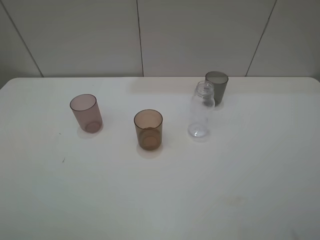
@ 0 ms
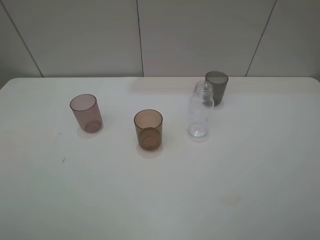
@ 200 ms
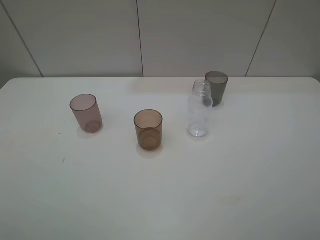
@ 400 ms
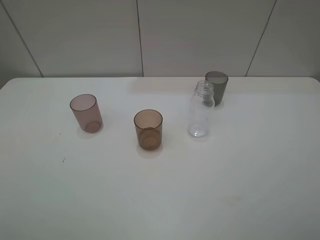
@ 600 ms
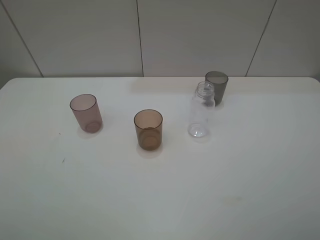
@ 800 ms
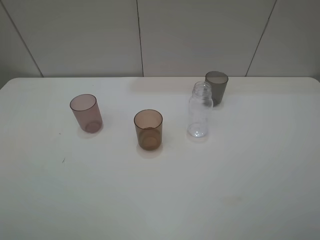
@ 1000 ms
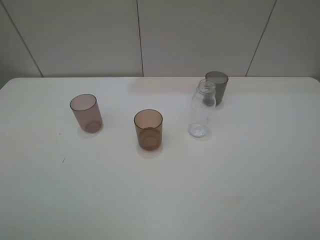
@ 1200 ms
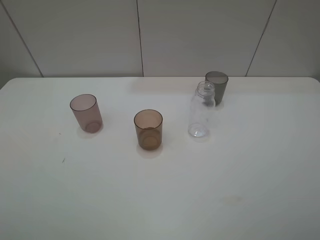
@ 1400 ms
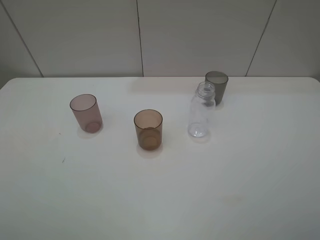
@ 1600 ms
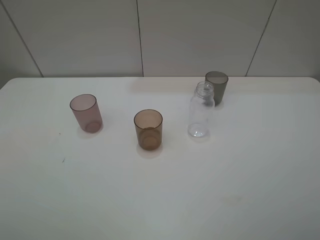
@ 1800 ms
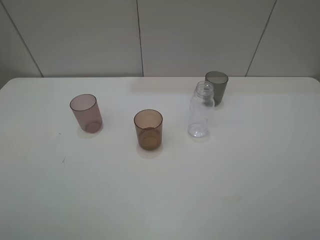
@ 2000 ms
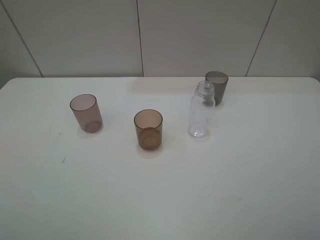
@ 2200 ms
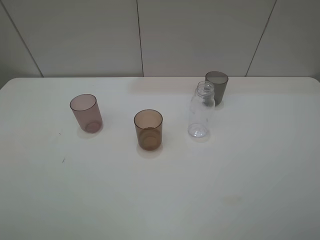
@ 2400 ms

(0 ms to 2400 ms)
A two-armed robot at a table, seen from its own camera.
Task of the whole recording: pick up the bottle filled with water and pour water into the middle cup of the three cups.
1200 ms - 2400 ms: Both grippers stay about where they are.
